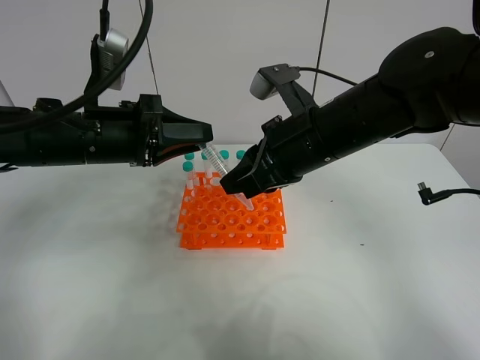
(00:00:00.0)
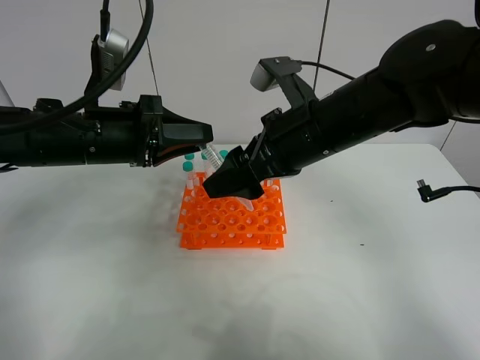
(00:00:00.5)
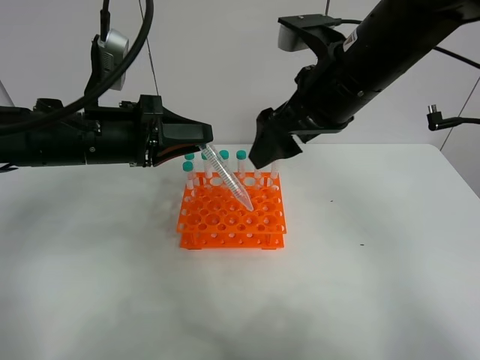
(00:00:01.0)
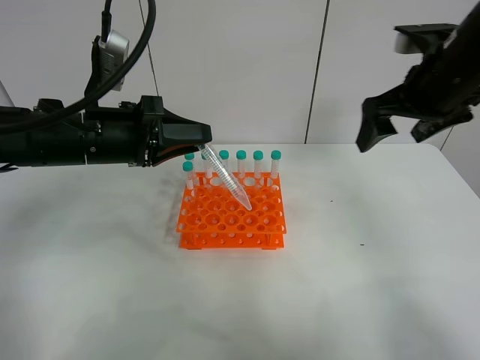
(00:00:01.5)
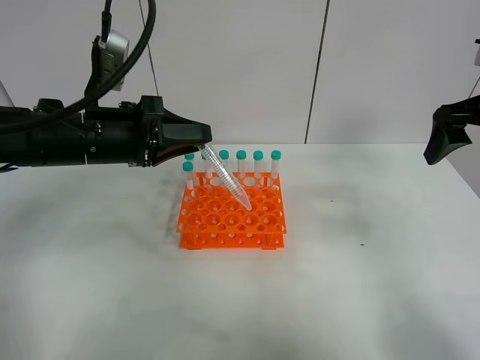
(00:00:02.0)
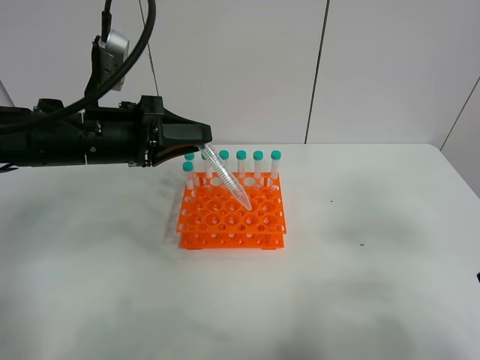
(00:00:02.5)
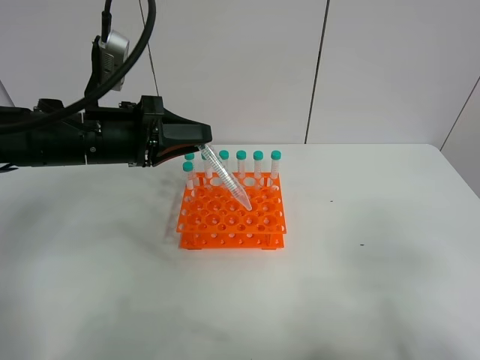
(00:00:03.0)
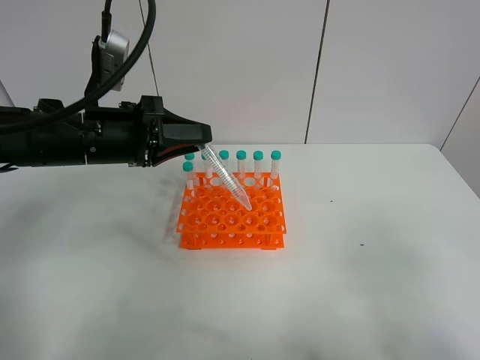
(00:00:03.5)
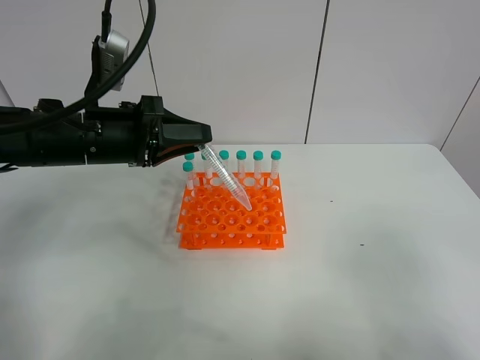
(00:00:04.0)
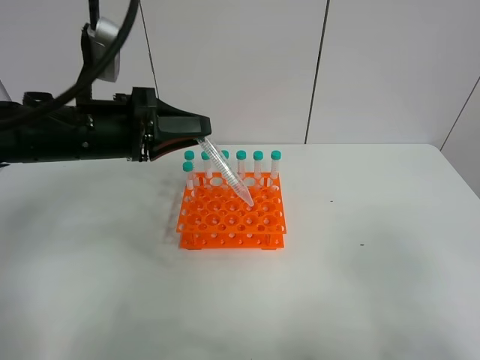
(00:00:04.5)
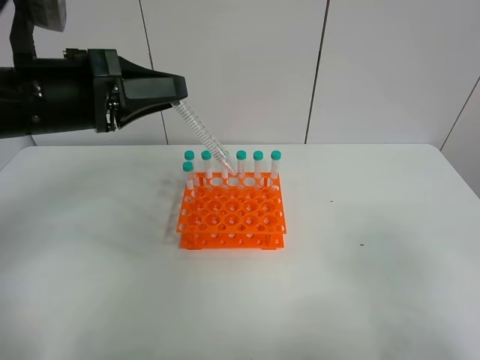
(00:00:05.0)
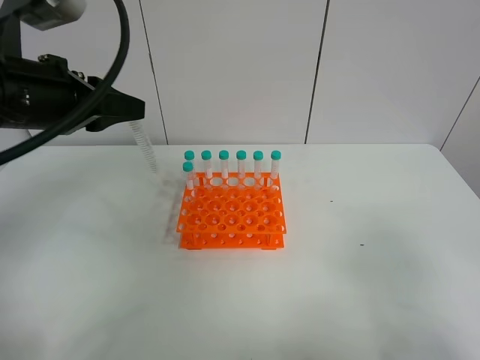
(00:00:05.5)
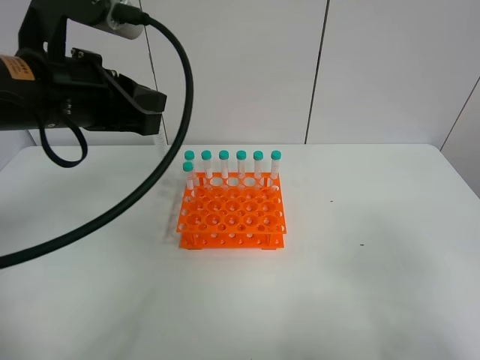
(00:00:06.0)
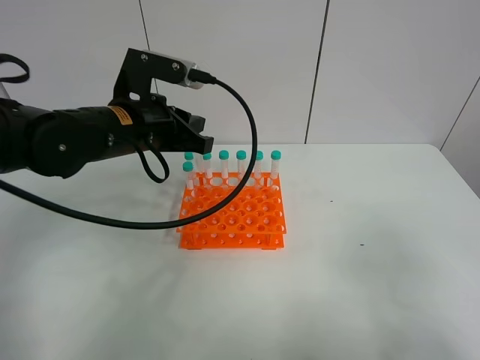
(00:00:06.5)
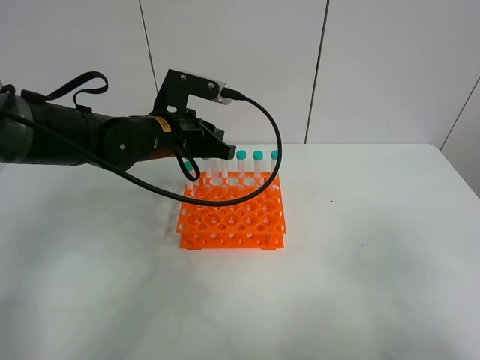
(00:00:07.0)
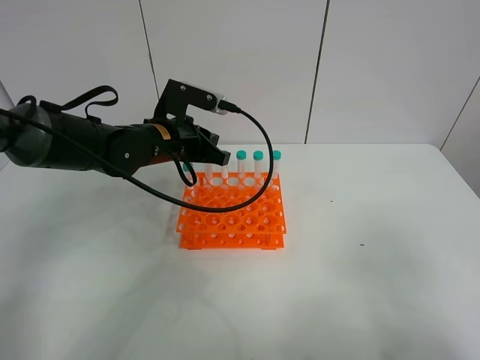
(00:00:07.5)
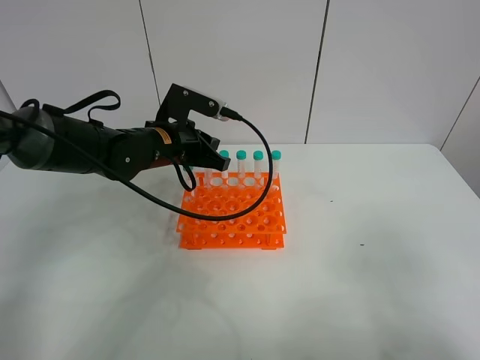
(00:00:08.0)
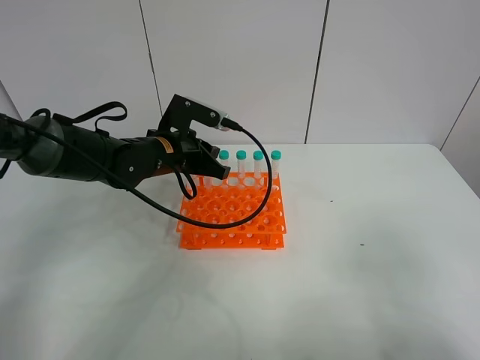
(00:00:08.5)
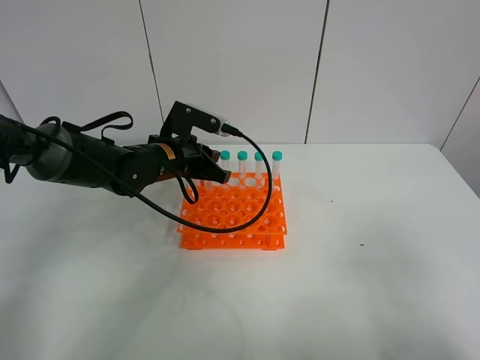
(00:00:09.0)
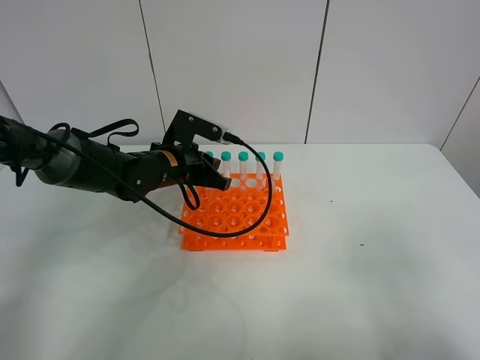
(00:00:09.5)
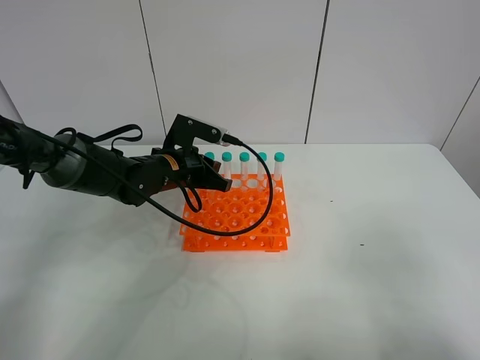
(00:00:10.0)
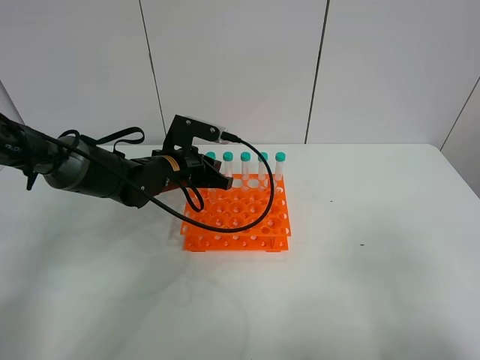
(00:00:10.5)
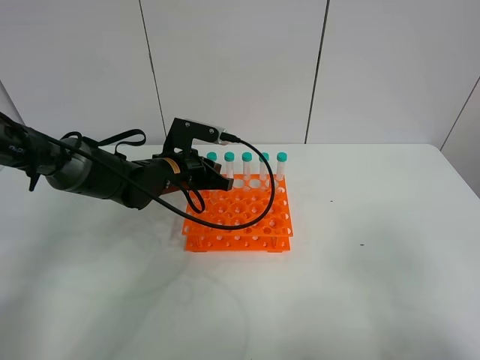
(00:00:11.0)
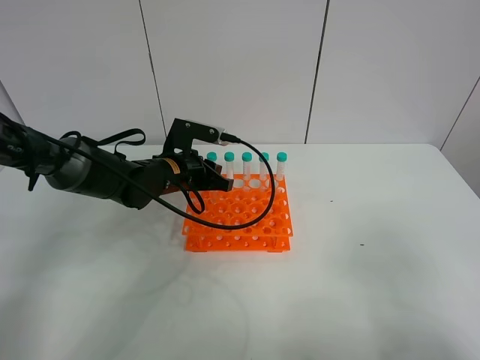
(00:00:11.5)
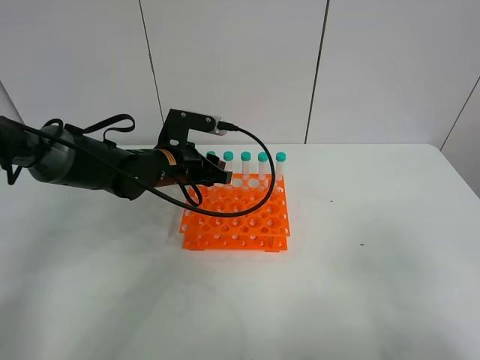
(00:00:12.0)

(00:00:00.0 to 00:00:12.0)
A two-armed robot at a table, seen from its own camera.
Task of the whole recording: Put the test tube on the table back onto the test tube rack.
Step, 00:00:00.5 - 00:00:11.5: Place the test tube on the test tube rack with the left gripper.
00:00:00.0 - 00:00:02.0: The right gripper shifts some 25 cm to the right, and opens.
00:00:02.0 - 00:00:04.0: The right gripper shifts roughly 30 cm backward.
00:00:04.0 - 00:00:06.0: The left gripper heads upward, covering about 10 cm.
00:00:06.0 - 00:00:08.0: The left gripper travels downward, forward and to the right by roughly 20 cm.
00:00:08.0 - 00:00:10.0: There are only small adjustments of the grippers.
00:00:10.0 - 00:00:12.0: The left gripper opens up.

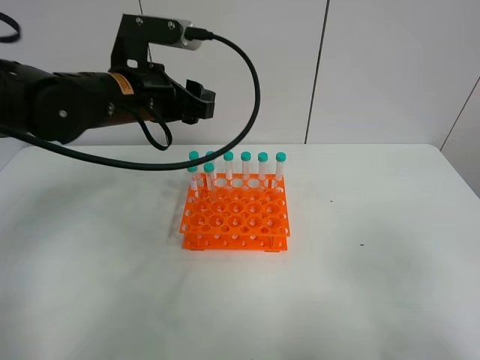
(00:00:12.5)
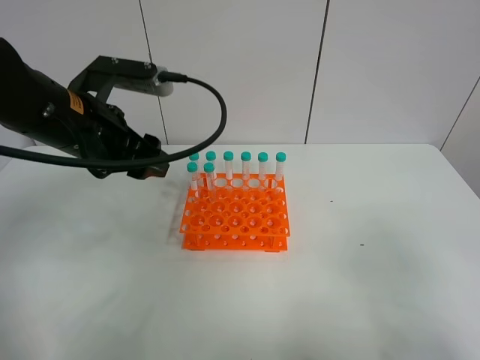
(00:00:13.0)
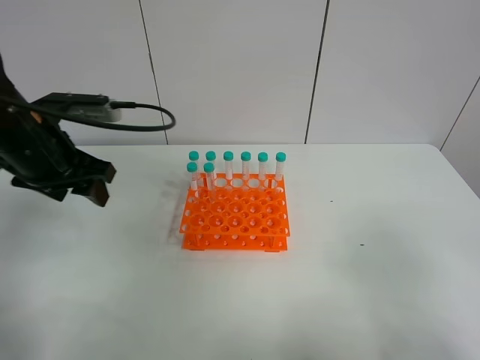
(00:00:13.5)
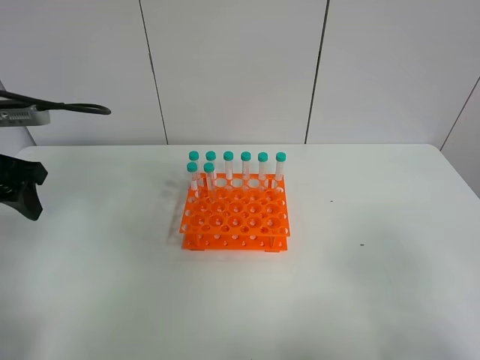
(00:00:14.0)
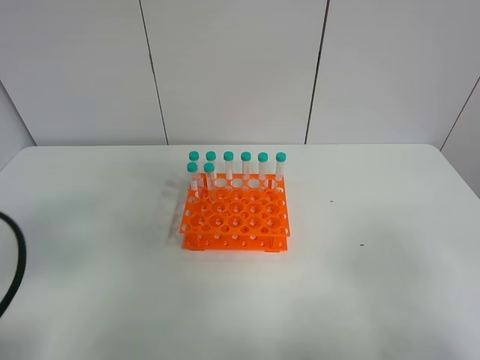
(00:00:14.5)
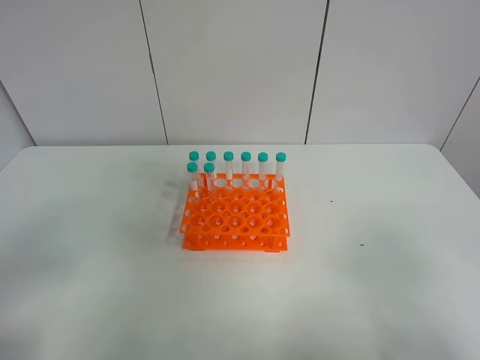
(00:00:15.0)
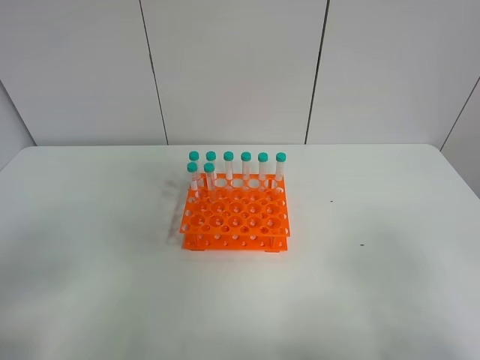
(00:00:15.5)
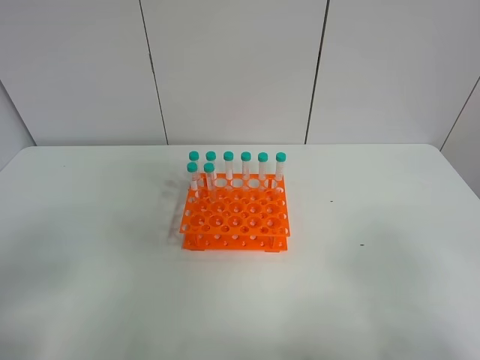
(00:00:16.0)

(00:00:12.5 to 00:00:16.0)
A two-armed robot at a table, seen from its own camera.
Task of the whole recording: Put the test tube on the table back onto the test tube rack.
00:00:12.5 - 00:00:14.5: The left gripper heads backward and to the left, covering approximately 30 cm.
